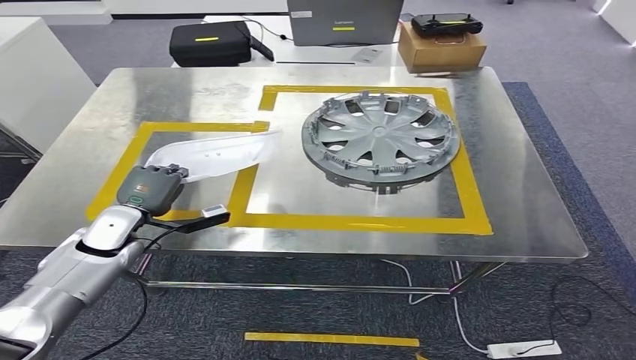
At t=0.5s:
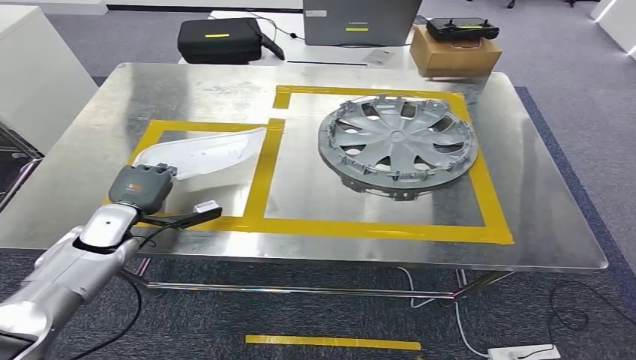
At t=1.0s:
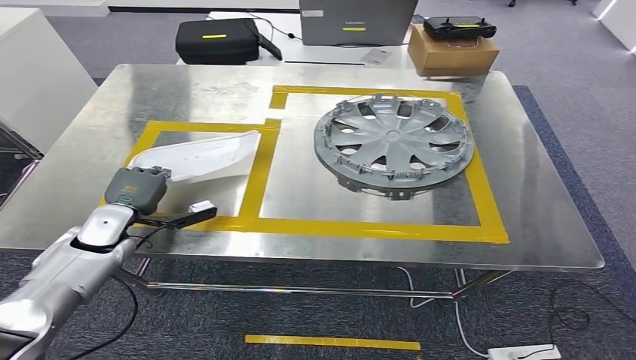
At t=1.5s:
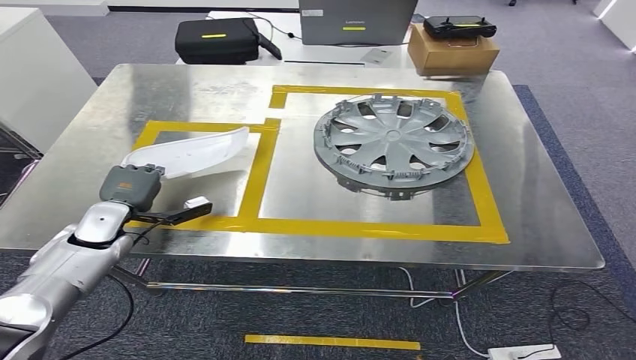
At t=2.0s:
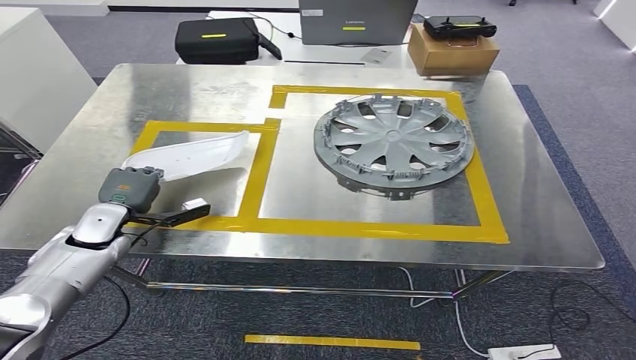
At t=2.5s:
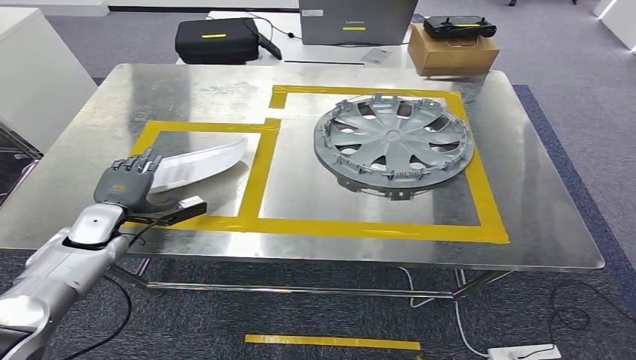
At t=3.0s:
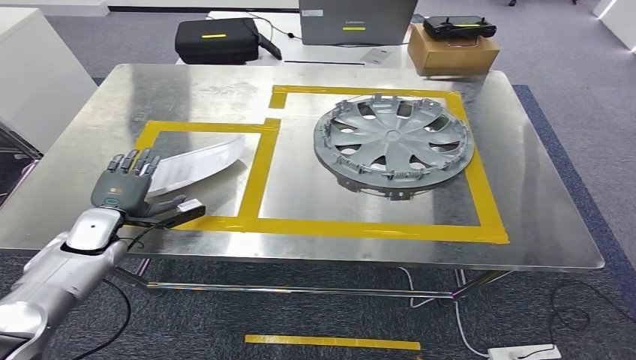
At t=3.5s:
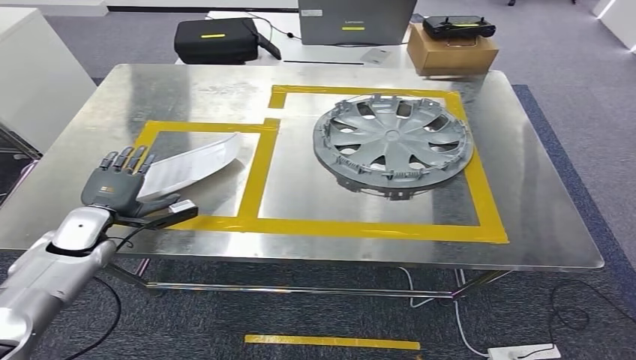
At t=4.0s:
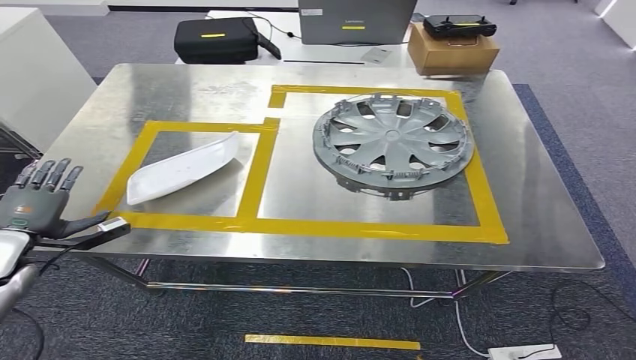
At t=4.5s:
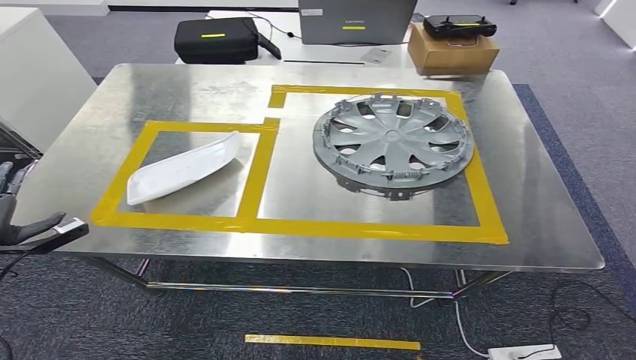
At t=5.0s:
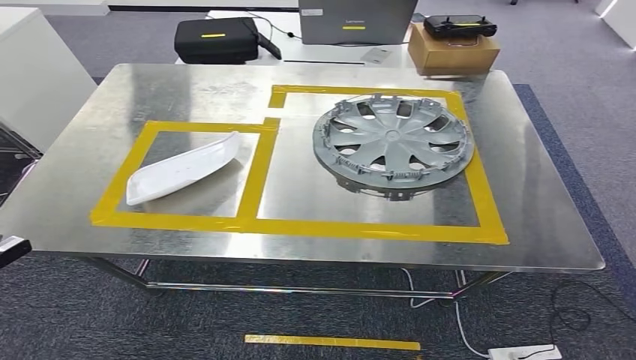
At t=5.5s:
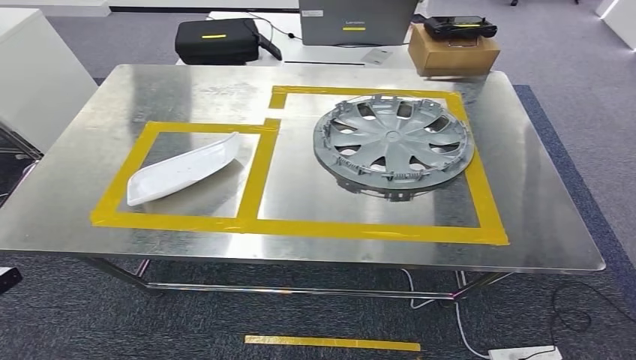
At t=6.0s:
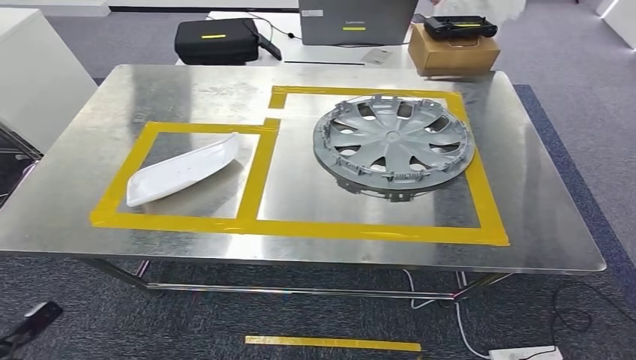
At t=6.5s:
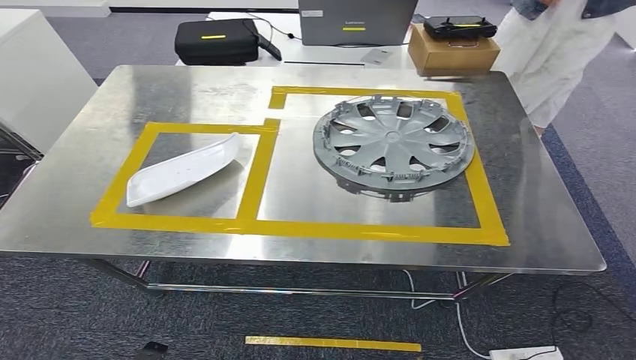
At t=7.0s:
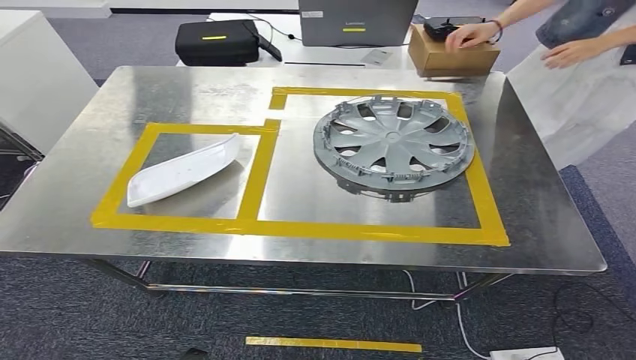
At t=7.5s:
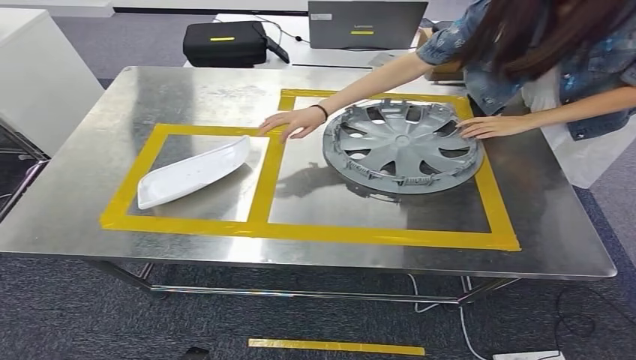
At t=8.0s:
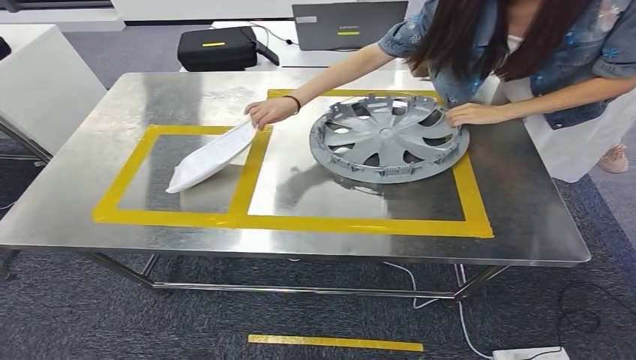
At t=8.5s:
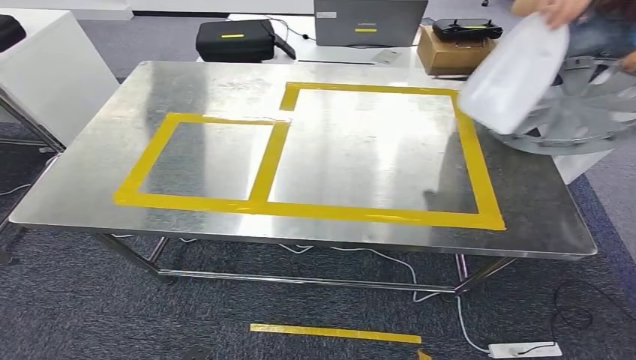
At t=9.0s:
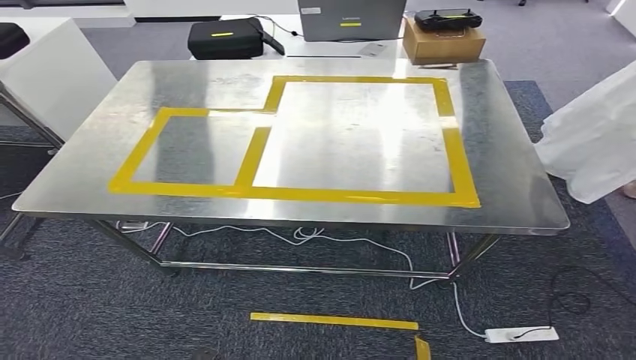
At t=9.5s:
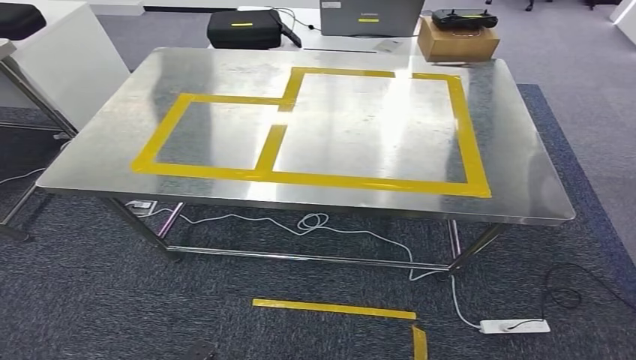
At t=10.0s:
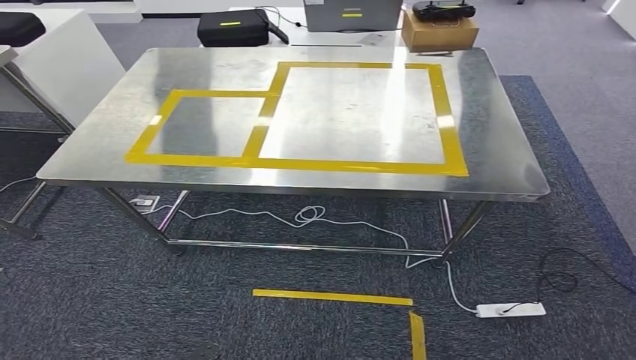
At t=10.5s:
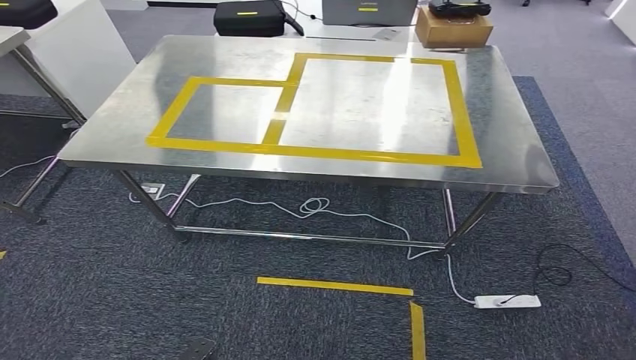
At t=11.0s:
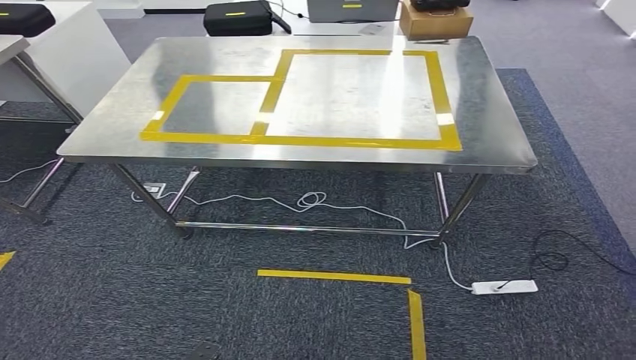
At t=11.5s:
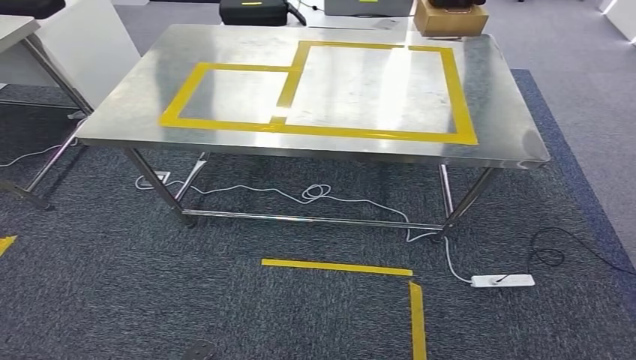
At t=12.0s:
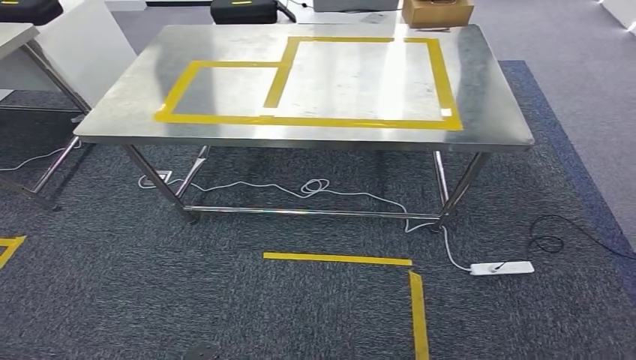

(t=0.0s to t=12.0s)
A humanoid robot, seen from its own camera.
Step, t=0.0s - t=4.5s: Insert the small component into the corresponding slot on the workbench.
t=2.0s - t=4.0s: The left hand shifts some 10 cm to the left and backward.
t=4.0s - t=6.0s: The left hand is displaced backward, downward and to the left by about 25 cm.

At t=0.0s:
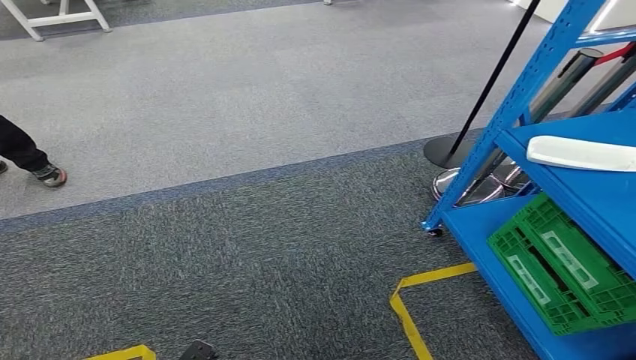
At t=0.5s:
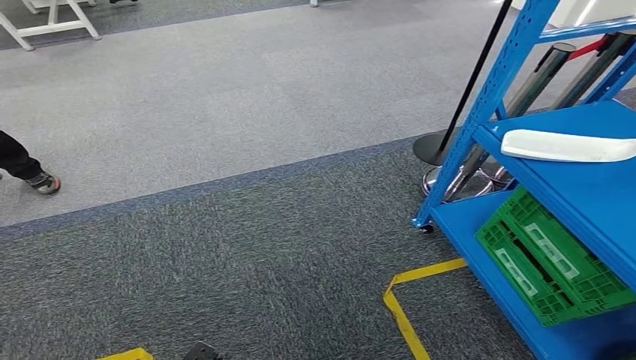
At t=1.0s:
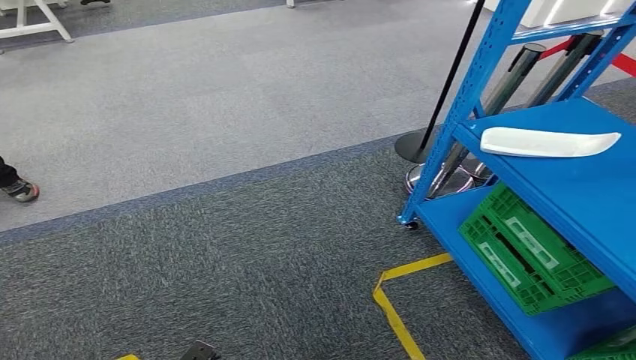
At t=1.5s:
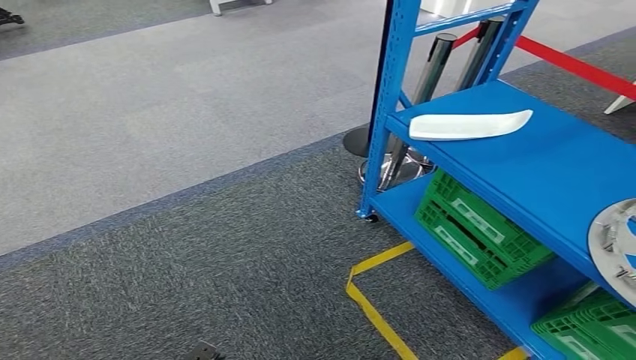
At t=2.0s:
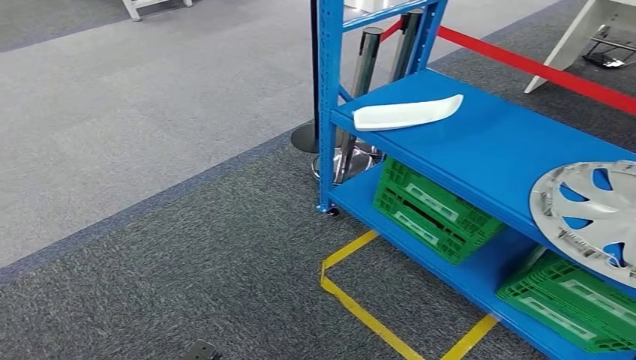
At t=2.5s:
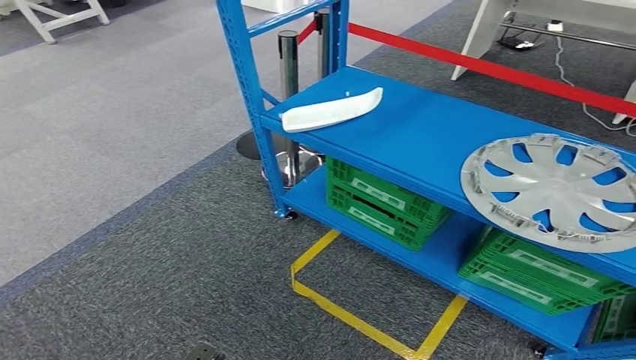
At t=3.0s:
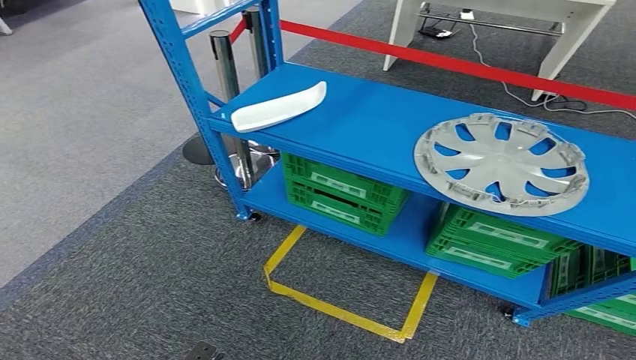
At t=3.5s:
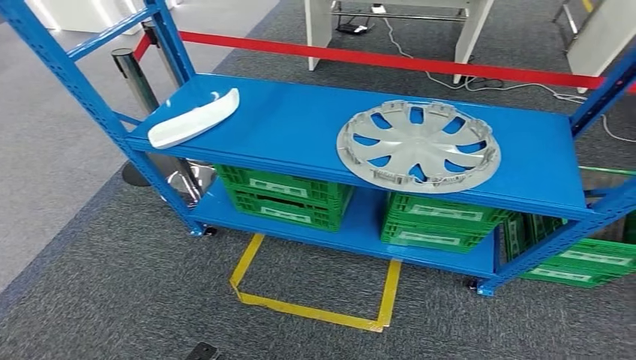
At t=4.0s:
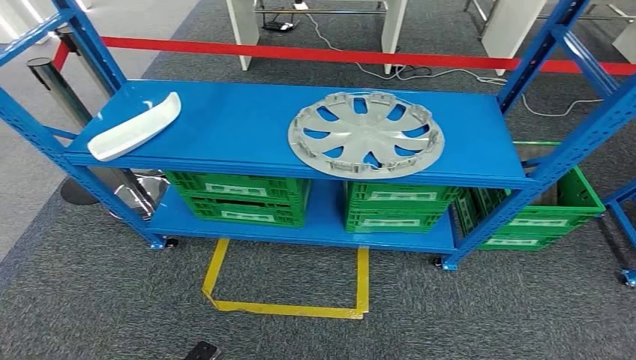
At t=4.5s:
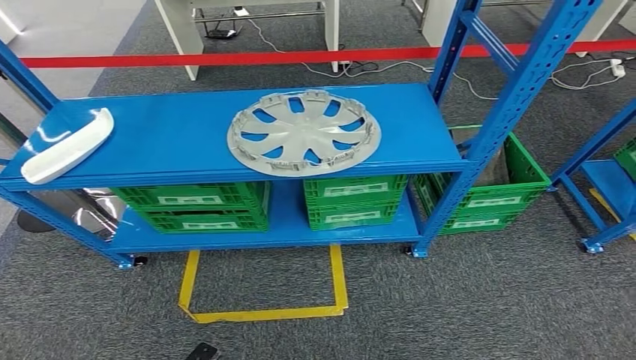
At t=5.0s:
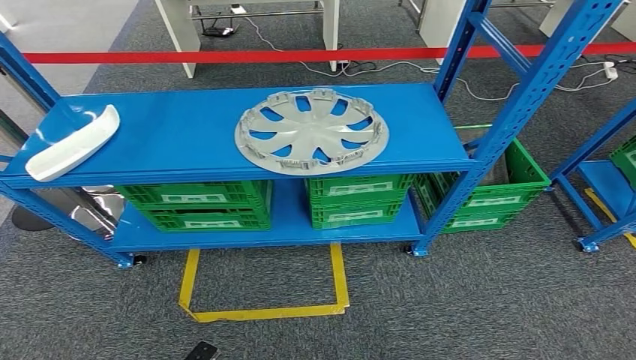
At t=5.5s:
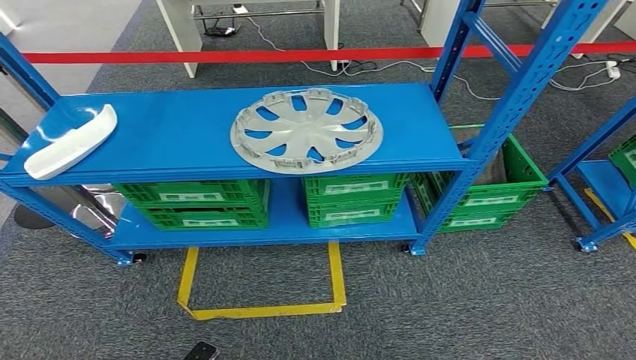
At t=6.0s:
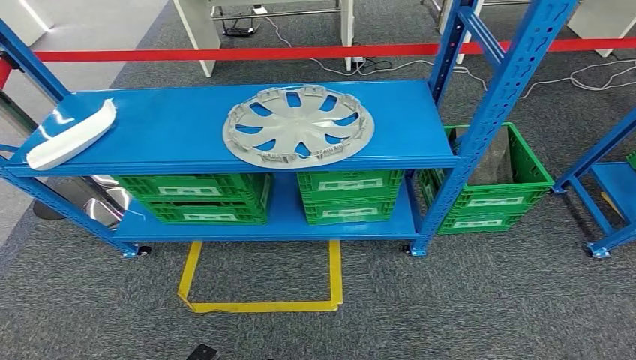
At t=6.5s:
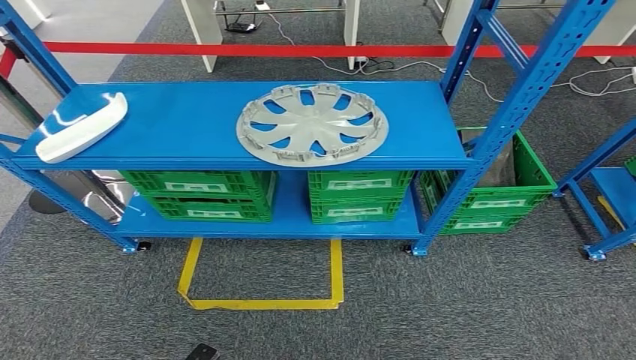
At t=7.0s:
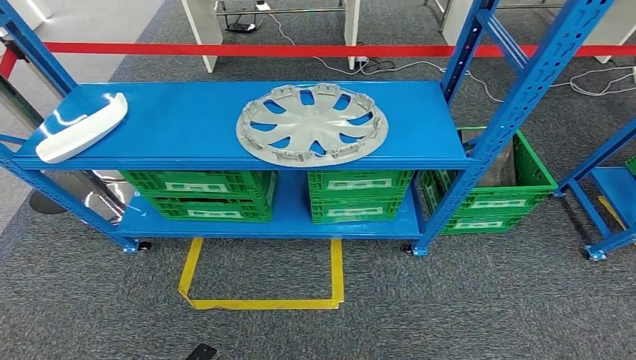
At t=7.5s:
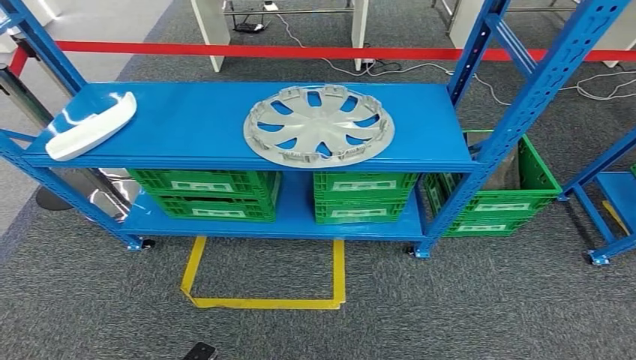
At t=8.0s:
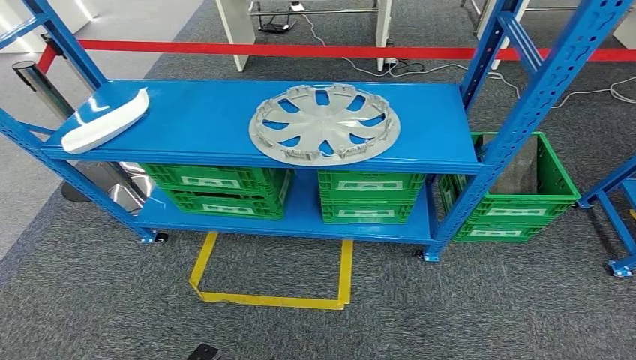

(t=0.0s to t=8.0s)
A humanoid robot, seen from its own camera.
Step, t=0.0s - t=8.0s: Move to the initial position of the workbench.
